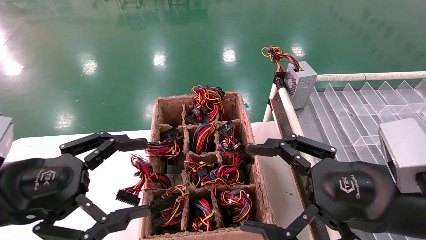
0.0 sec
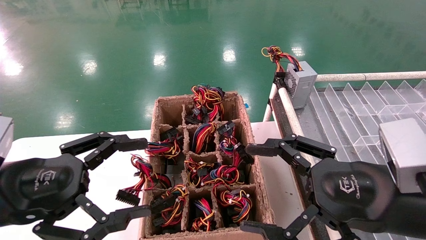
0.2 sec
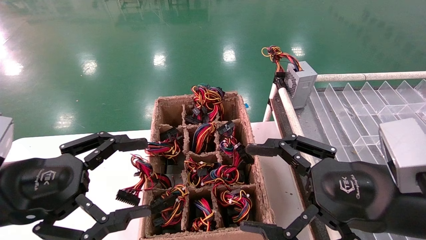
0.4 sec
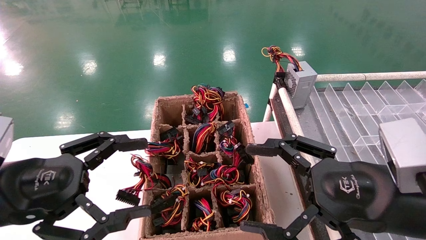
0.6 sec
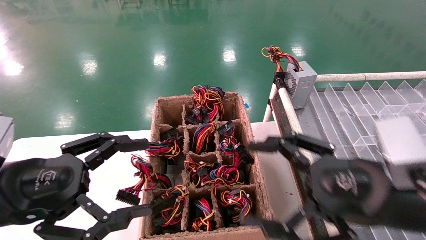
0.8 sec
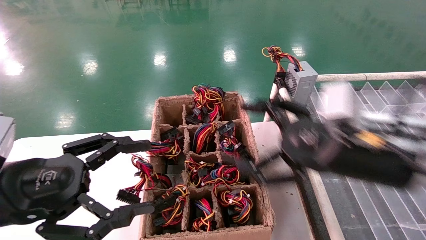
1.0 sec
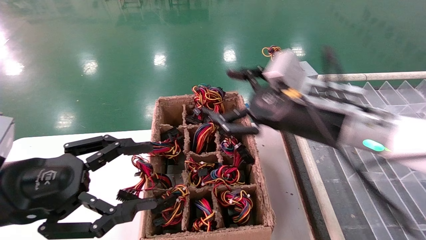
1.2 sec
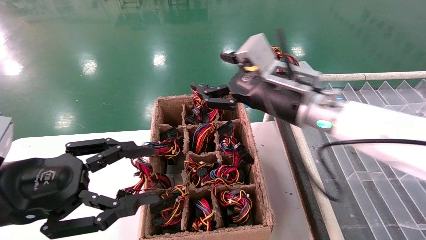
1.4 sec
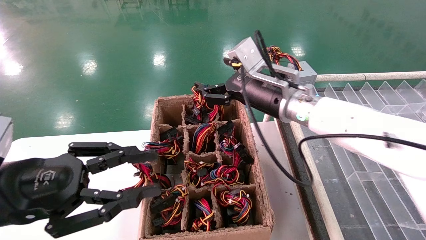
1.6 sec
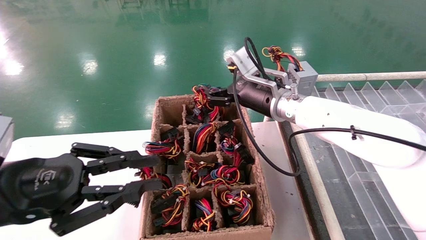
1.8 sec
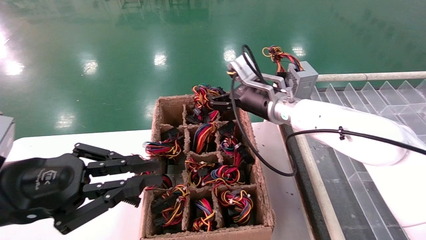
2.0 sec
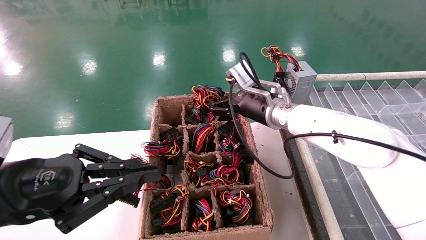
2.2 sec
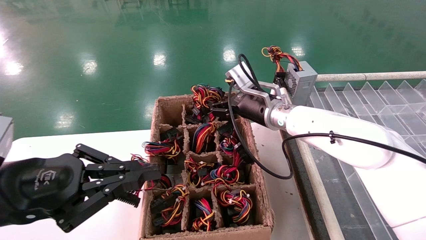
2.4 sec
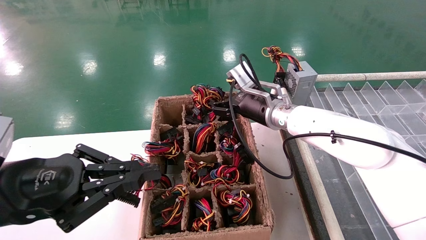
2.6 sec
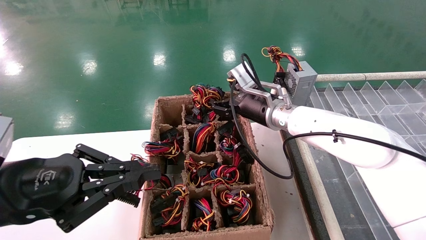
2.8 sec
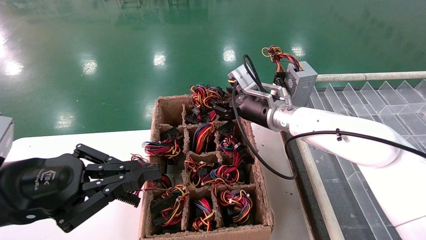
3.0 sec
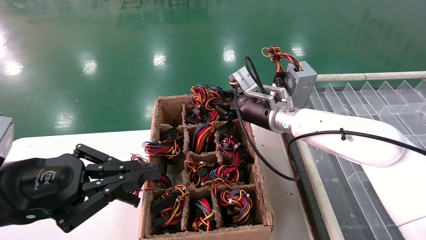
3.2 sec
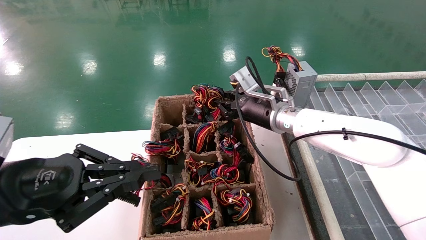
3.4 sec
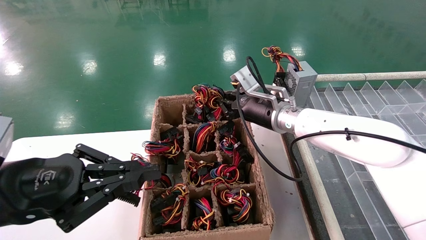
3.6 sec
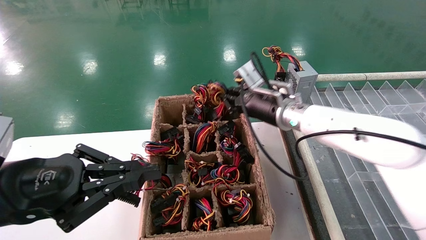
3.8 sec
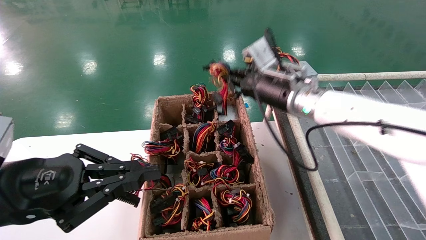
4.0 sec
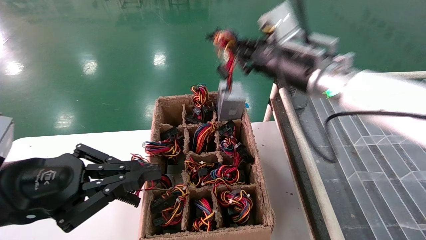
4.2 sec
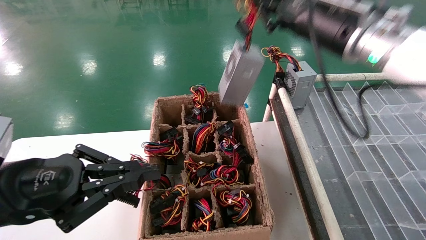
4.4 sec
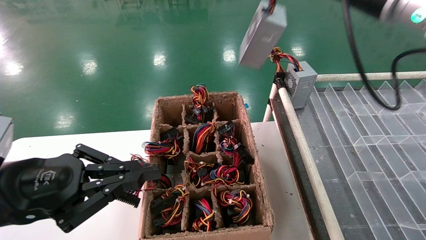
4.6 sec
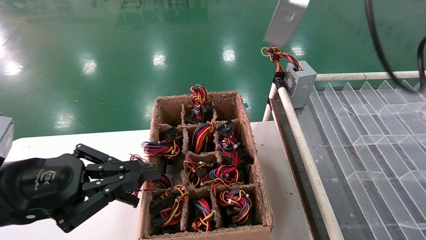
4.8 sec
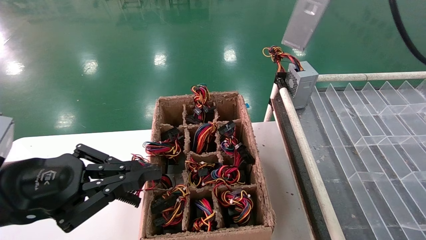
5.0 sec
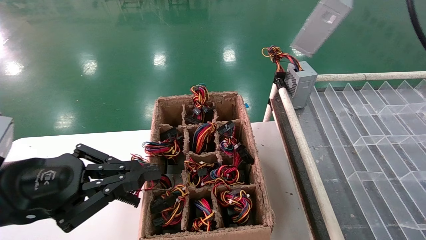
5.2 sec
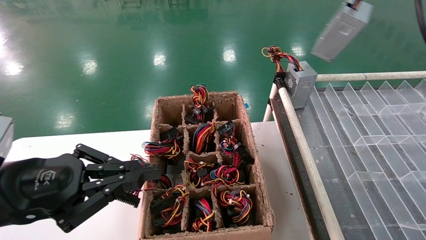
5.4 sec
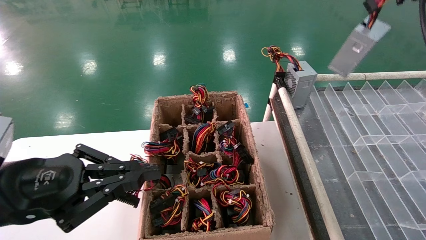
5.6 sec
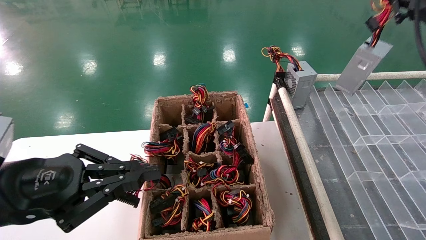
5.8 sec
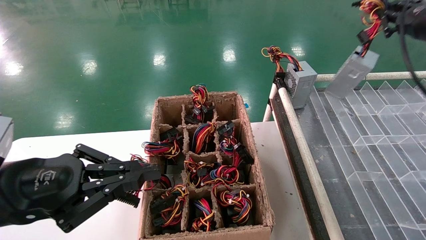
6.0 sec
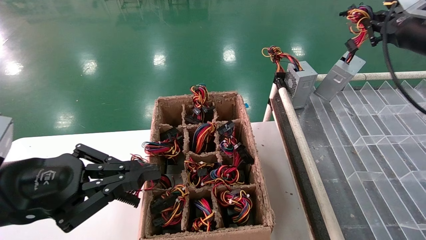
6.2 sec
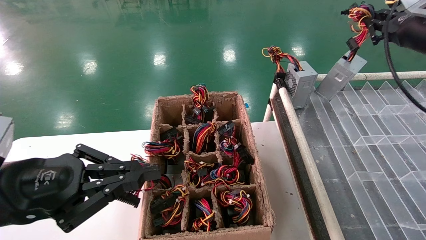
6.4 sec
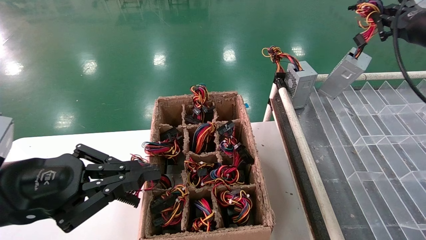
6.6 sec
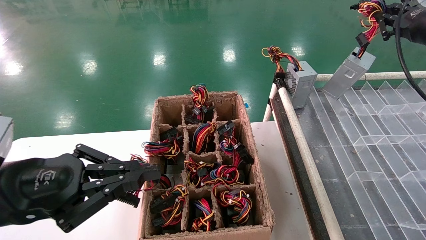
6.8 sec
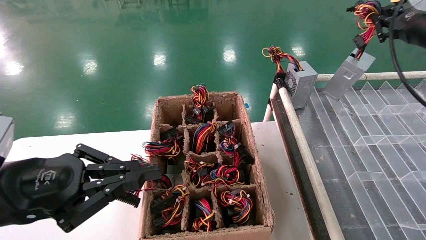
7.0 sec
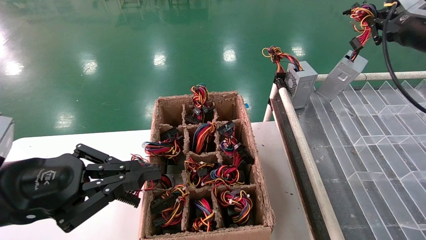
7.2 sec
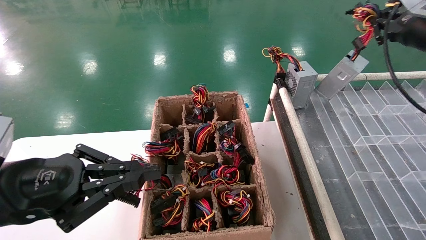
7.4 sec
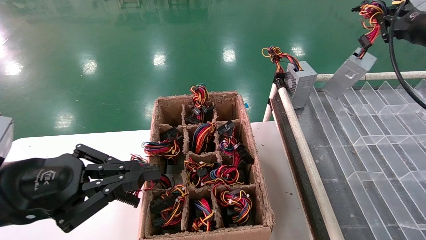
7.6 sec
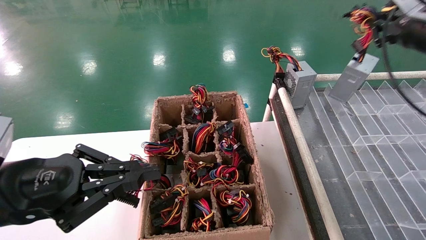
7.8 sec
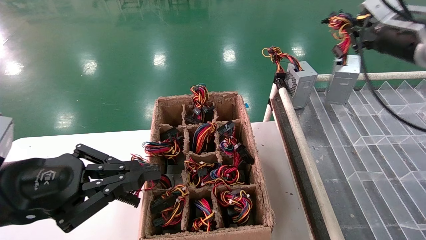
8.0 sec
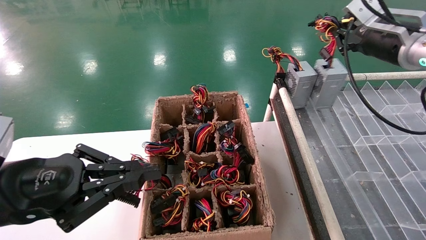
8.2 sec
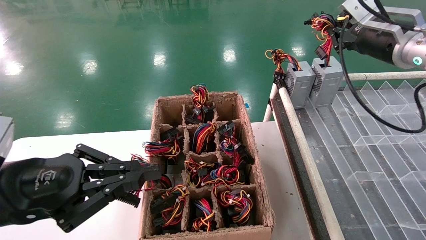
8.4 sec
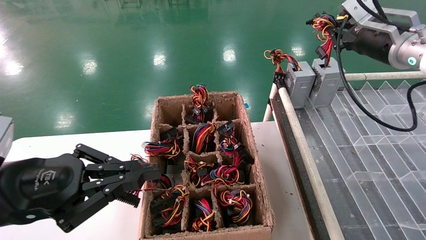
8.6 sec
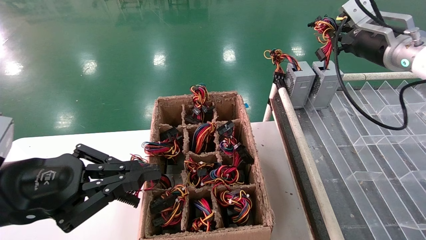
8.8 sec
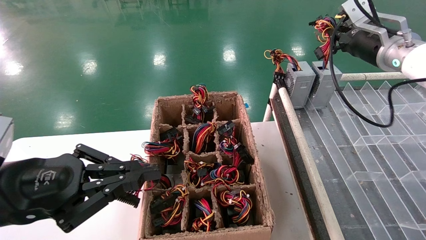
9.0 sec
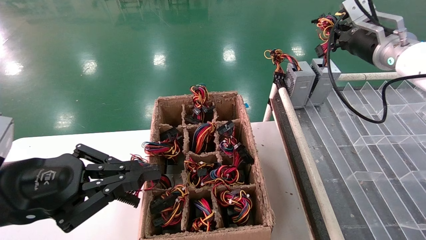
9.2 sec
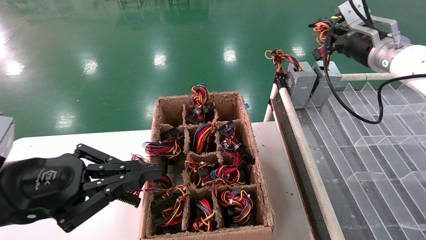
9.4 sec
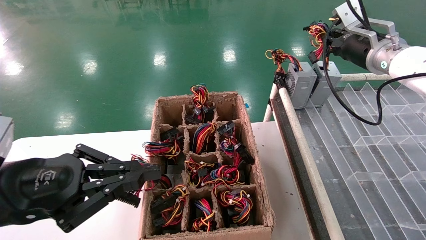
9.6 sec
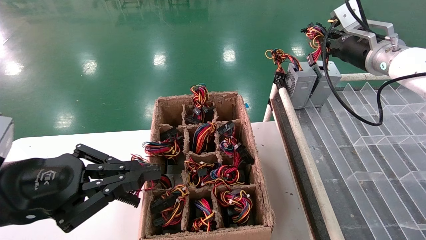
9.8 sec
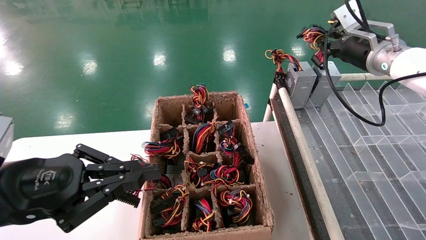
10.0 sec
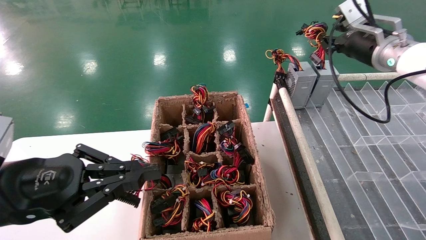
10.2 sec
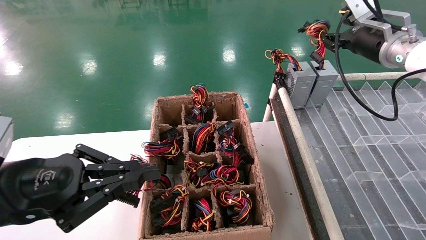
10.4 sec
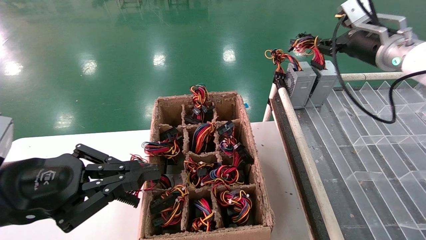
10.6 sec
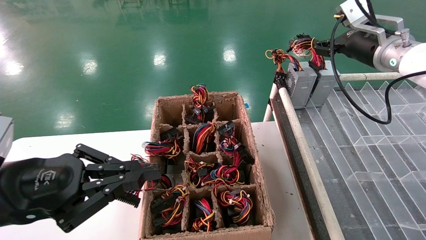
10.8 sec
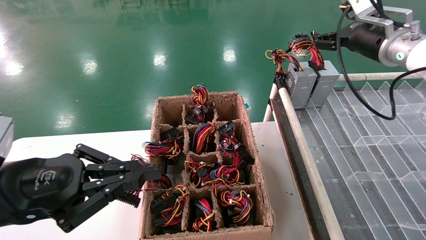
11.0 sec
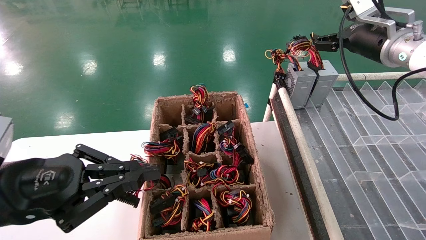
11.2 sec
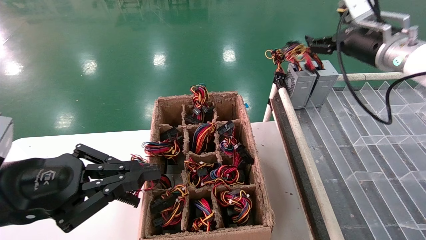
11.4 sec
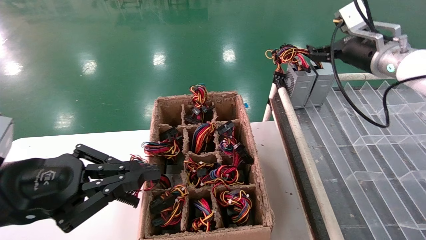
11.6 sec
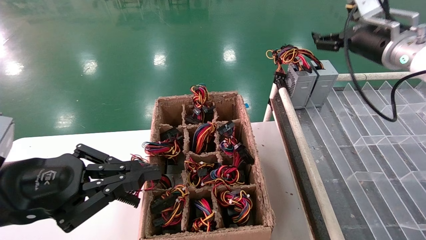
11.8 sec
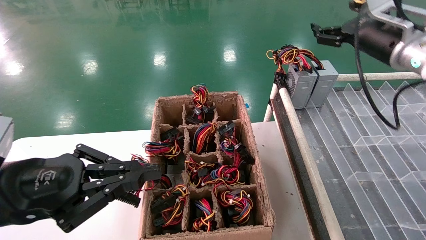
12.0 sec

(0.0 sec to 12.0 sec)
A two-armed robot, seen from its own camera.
Step, 1.2 sec - 3.8 sec: Grab the main unit power supply from the containment box.
Step, 4.0 sec - 11.2 sec: Place the main unit power supply in the designated area.
0.0 sec - 1.6 sec: The right gripper is displaced forward and to the left by about 25 cm, while the left gripper closes.
1.6 sec - 3.0 sec: The right gripper travels forward by roughly 5 cm; the left gripper closes up.
3.0 sec - 4.4 sec: The right gripper moves upward, backward and to the right, some 20 cm, and closes its fingers.
4.4 sec - 6.0 sec: The right gripper heads to the right, covering approximately 20 cm.
6.0 sec - 7.6 sec: The grippers move only a little.
7.6 sec - 9.0 sec: The right gripper heads to the left and forward, covering approximately 10 cm.
9.0 sec - 10.4 sec: There are only small adjustments of the grippers.
10.4 sec - 12.0 sec: The right gripper opens its fingers.

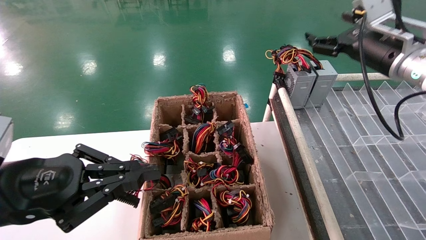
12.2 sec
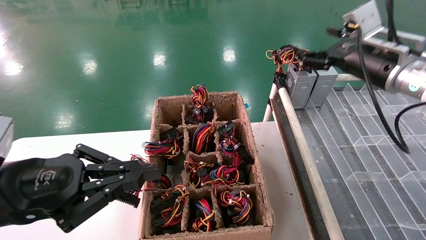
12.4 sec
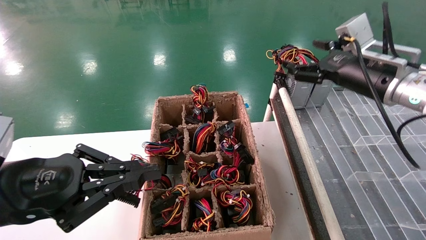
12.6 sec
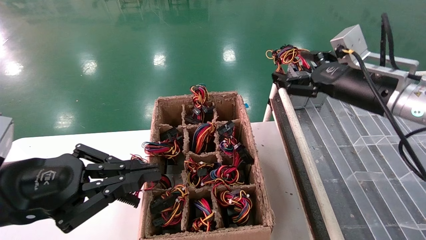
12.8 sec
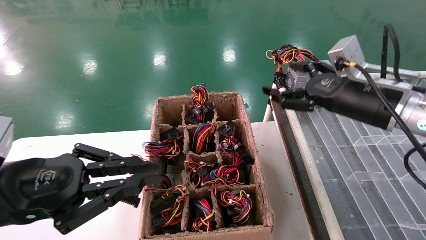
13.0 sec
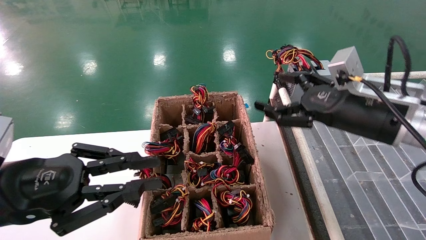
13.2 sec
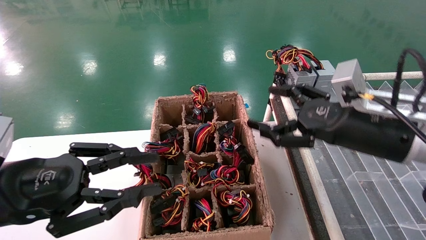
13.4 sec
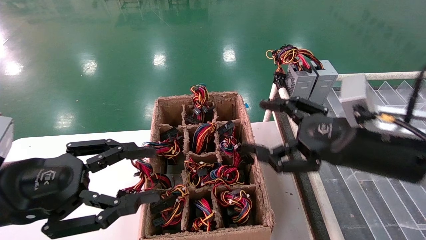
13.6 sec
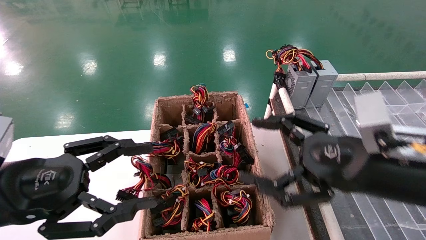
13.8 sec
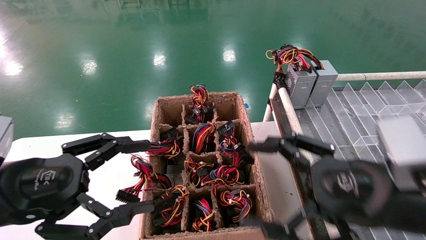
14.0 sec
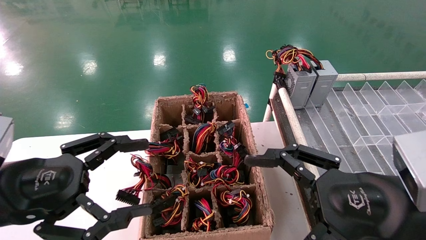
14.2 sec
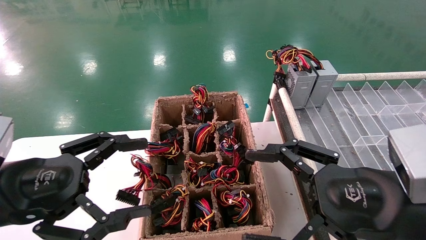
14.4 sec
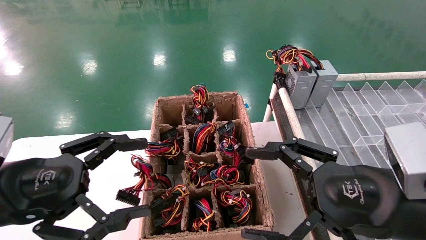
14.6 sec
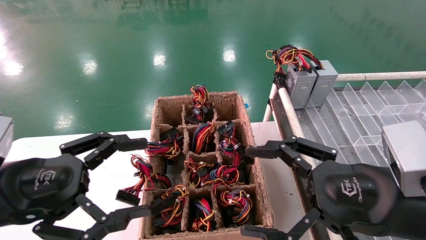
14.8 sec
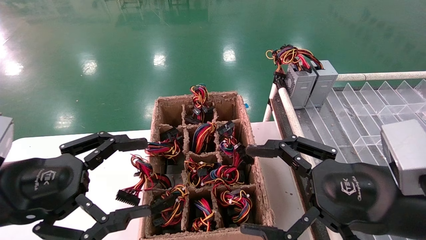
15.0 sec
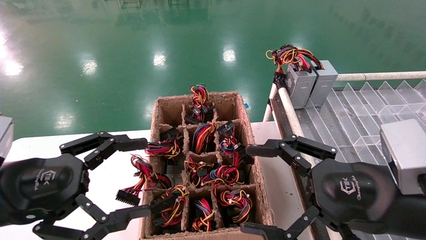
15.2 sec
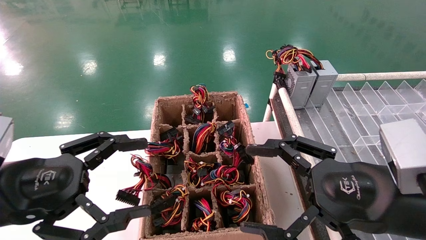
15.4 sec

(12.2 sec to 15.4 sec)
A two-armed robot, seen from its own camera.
12.2 sec - 13.8 sec: The right gripper travels backward, downward and to the left by some 20 cm. The left gripper opens up.
13.8 sec - 15.4 sec: The left gripper opens its fingers.
